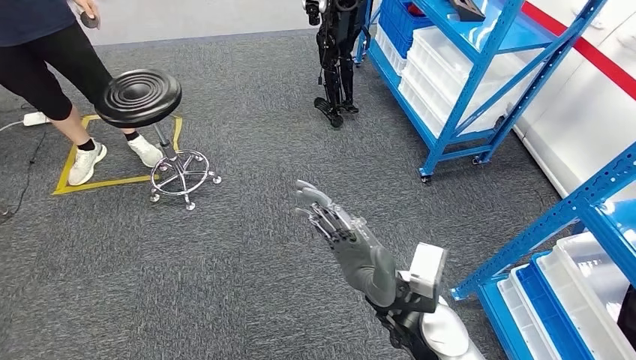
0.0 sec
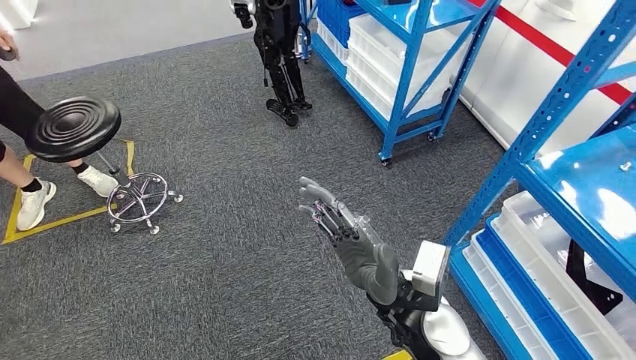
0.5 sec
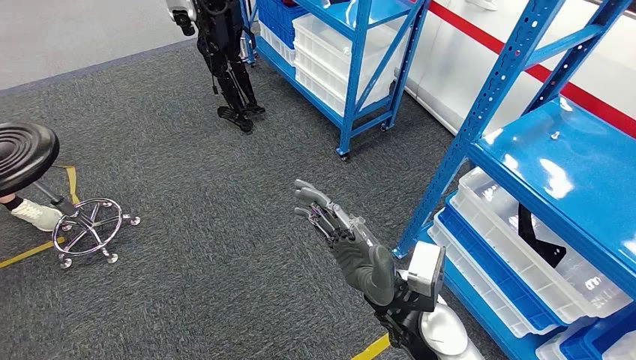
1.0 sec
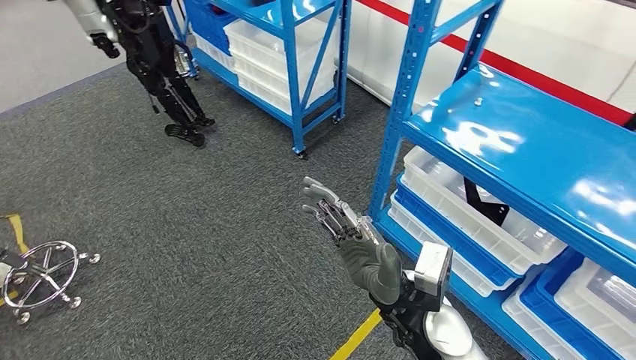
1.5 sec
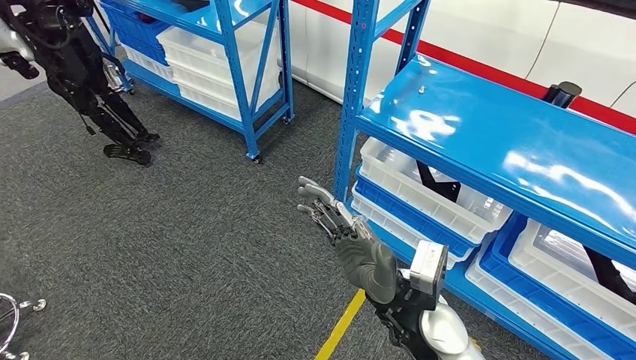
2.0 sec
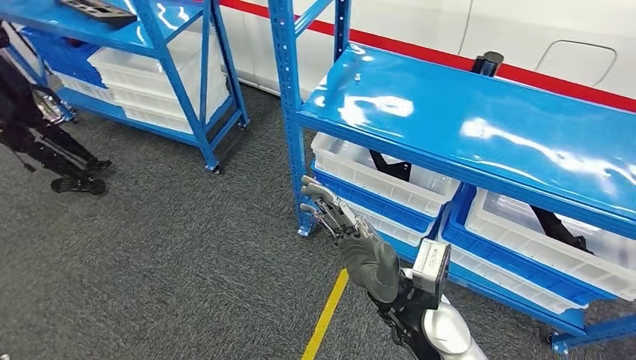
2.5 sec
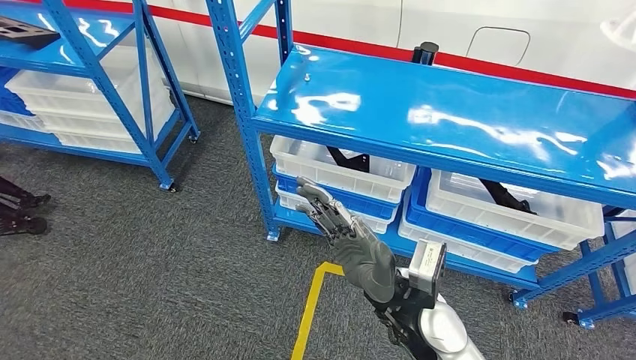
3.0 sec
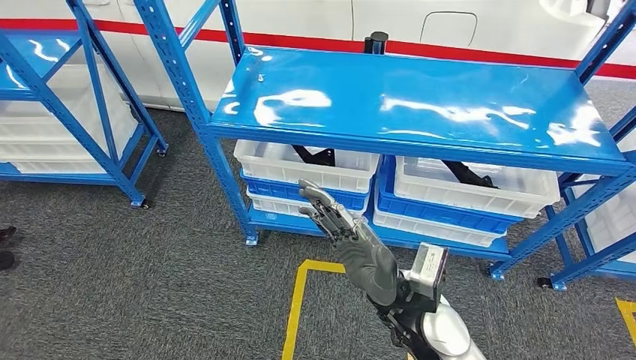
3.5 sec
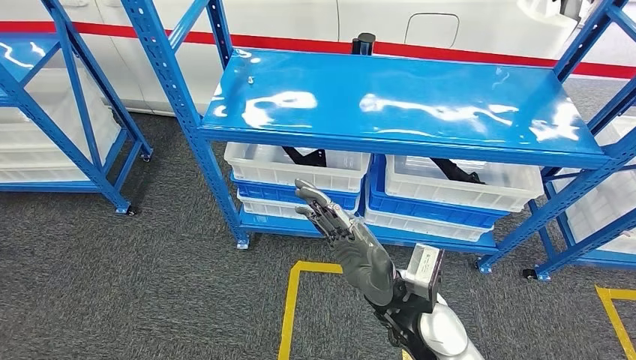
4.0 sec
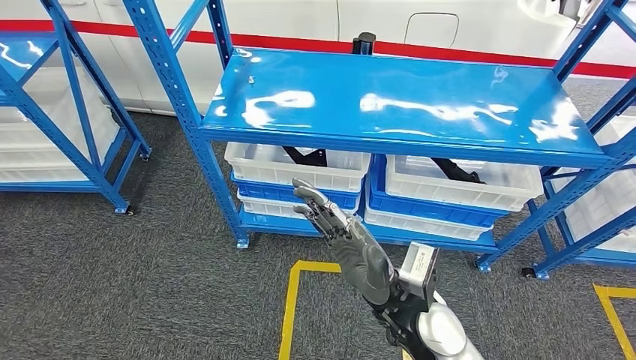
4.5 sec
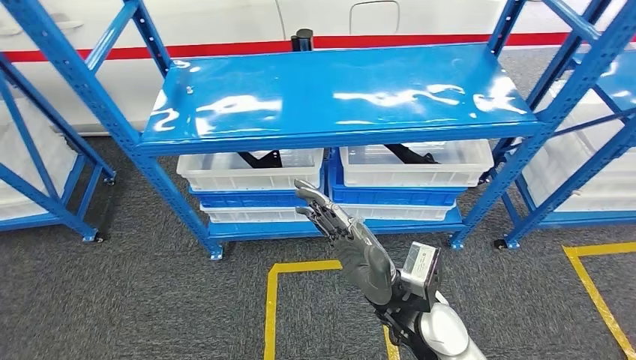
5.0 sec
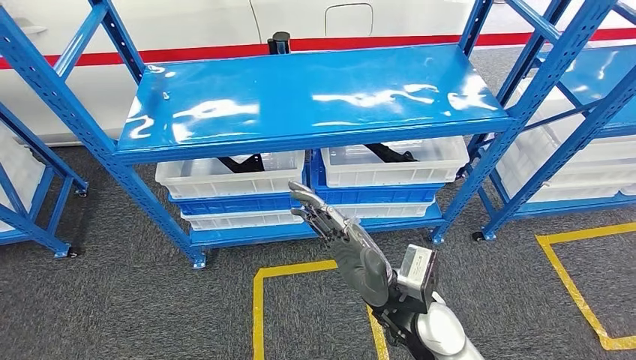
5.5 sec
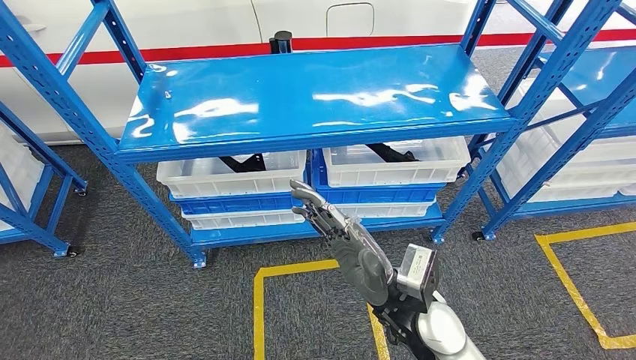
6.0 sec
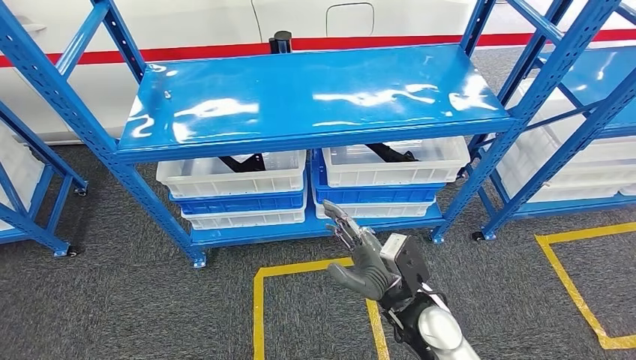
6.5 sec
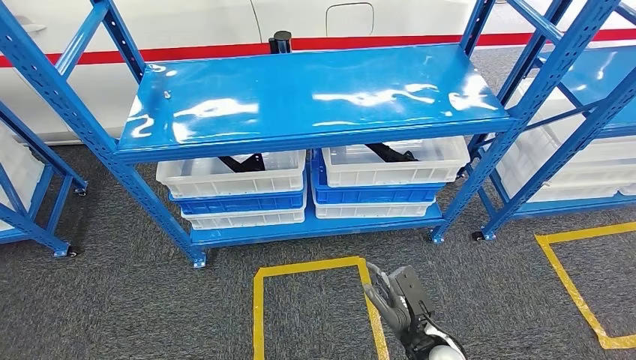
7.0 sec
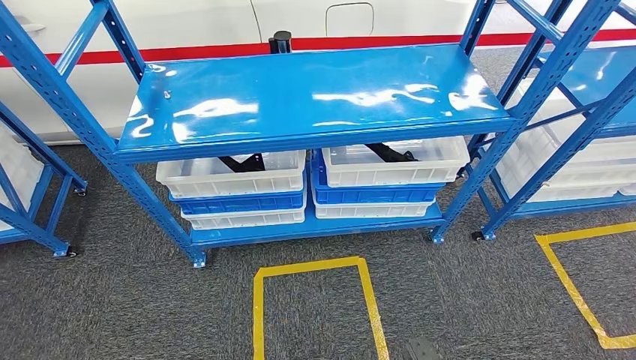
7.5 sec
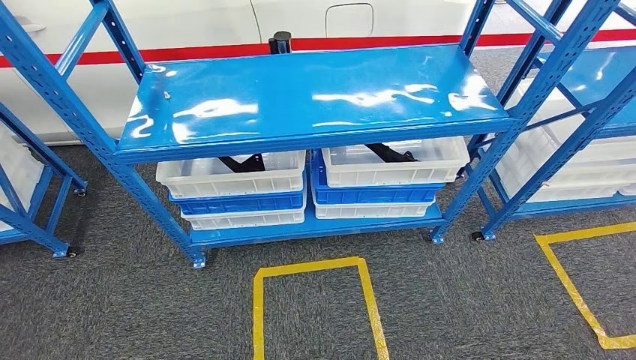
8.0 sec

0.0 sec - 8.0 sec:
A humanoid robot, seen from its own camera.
Step, 0.0 sec - 8.0 sec: Move to the initial position of the shelf.
6.0 sec - 8.0 sec: The right hand travels downward, backward and to the right by roughly 40 cm.
